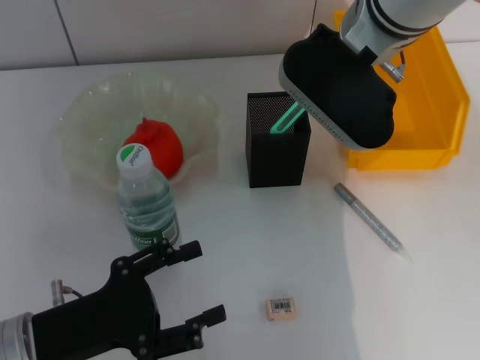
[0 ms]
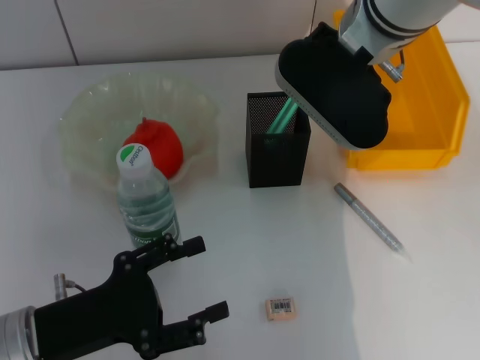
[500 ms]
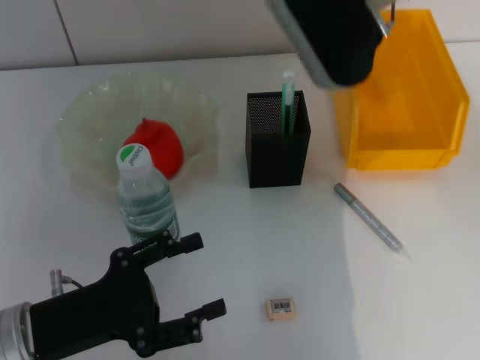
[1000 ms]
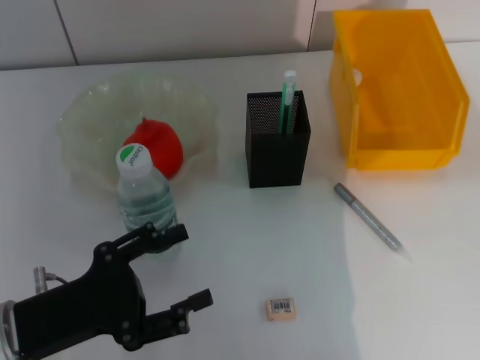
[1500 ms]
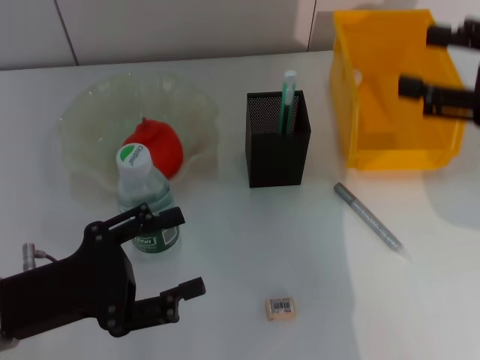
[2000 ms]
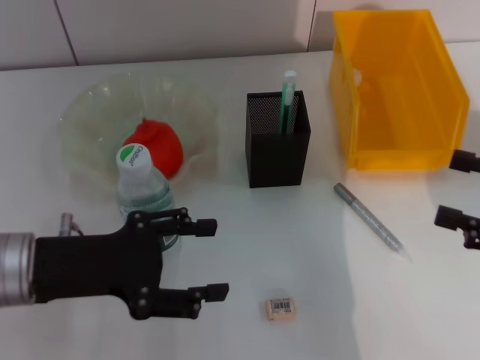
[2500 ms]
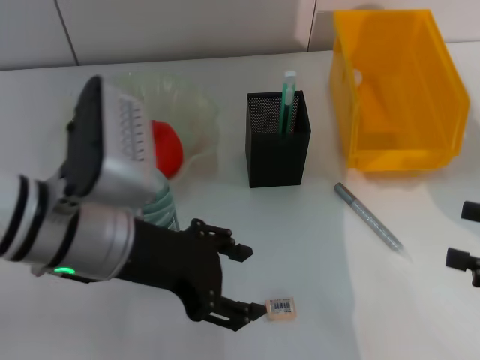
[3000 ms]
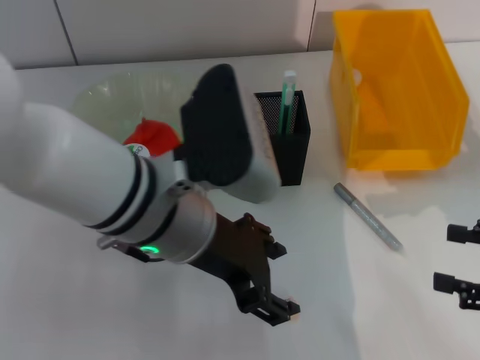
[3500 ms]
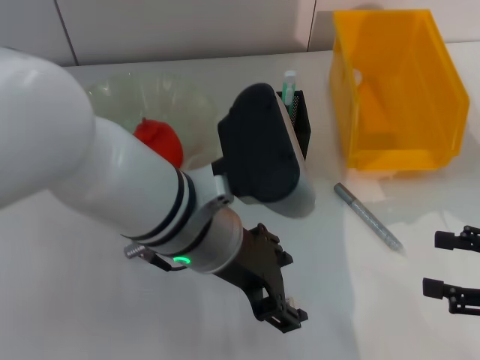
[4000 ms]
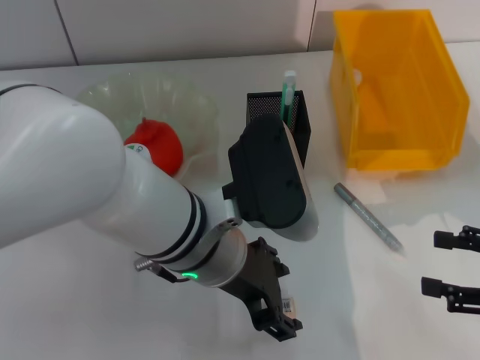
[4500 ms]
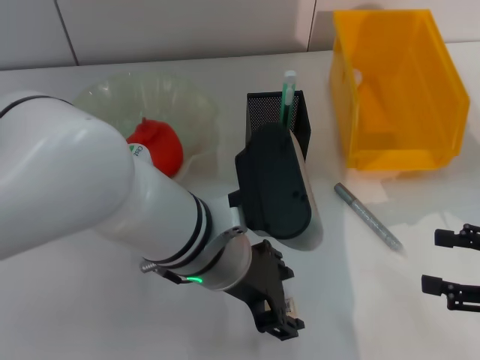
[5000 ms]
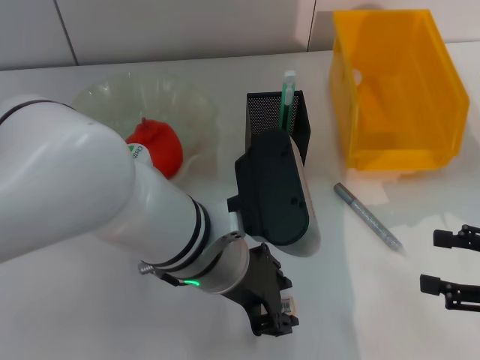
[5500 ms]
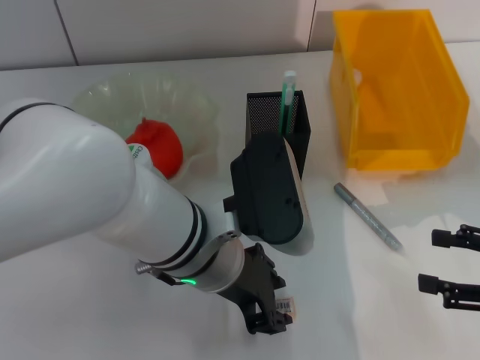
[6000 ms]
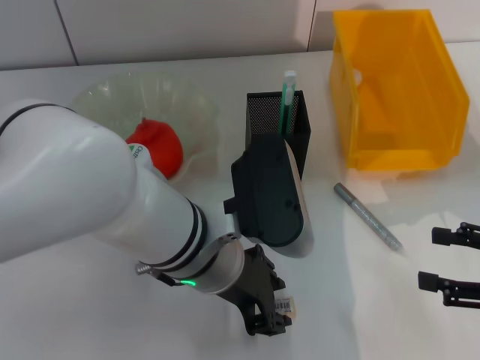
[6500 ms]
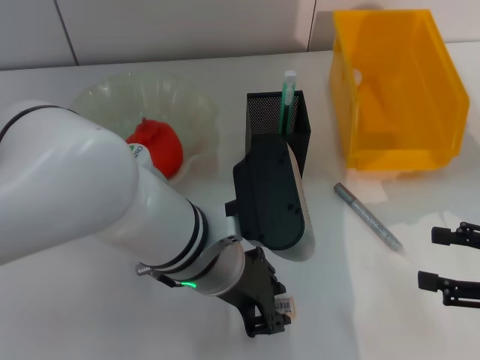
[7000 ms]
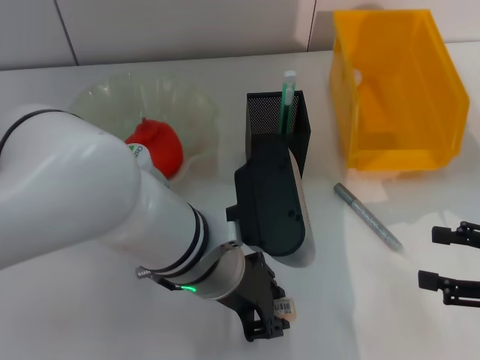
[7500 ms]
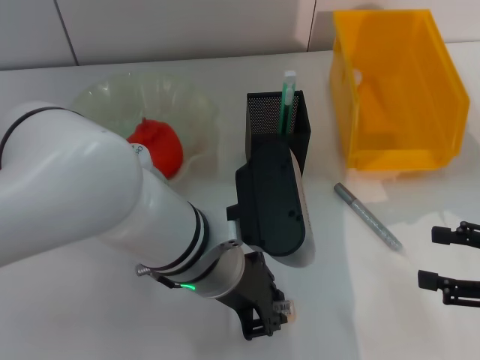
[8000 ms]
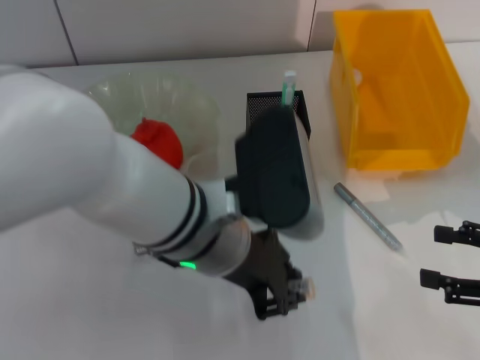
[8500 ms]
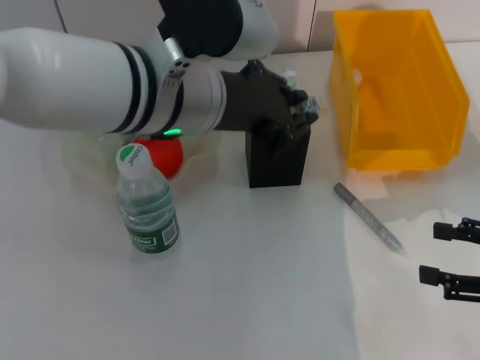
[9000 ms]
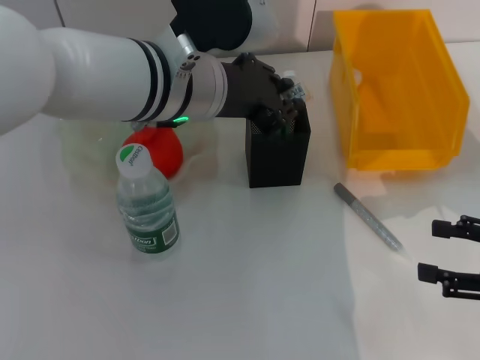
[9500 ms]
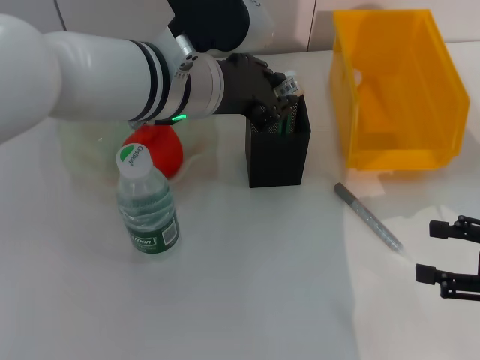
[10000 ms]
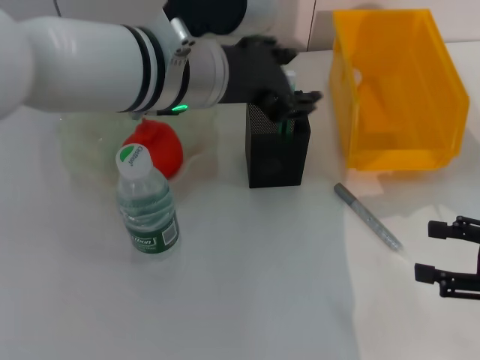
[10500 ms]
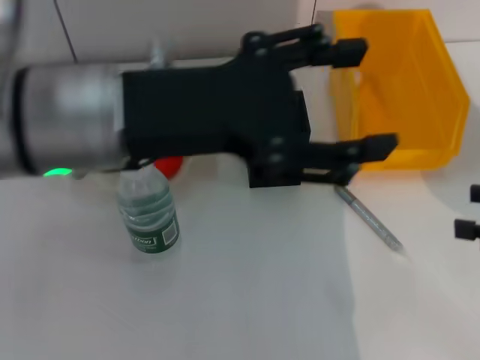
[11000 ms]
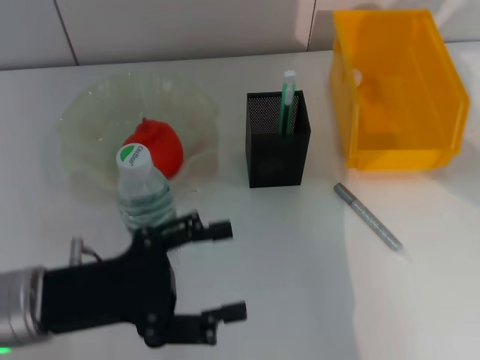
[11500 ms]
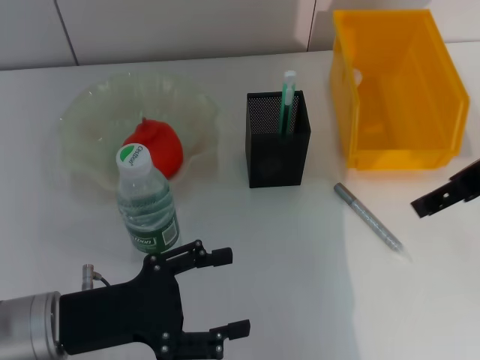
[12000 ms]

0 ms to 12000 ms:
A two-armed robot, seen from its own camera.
Step, 1500 ms to 8000 ms: Grab the eraser with the left hand.
Step, 8500 ms to 10000 ms: Place the eraser into the pen holder with the left hand.
0 ms to 2000 ms: The right gripper is displaced to the right and backward by some 25 cm, and opens its fingers.
2000 ms to 4000 ms: The right gripper goes roughly 15 cm downward and backward. Meanwhile the left gripper travels to the right and upward by some 20 cm.
4000 ms to 6000 ms: The left gripper closes.
6000 ms to 8000 ms: Both grippers stay put.
8000 ms to 10000 ms: The left gripper is displaced forward and upward by some 10 cm.
10000 ms to 12000 ms: The right gripper goes some 20 cm upward, to the left and forward. Meanwhile the left gripper travels to the left, backward and downward by approximately 25 cm, and opens up.

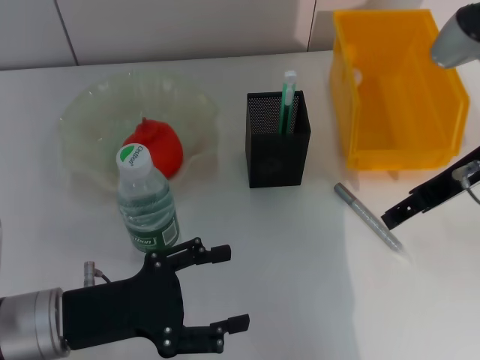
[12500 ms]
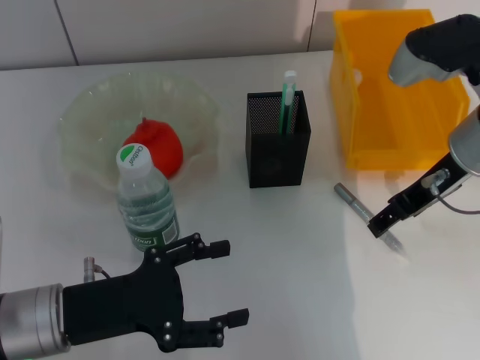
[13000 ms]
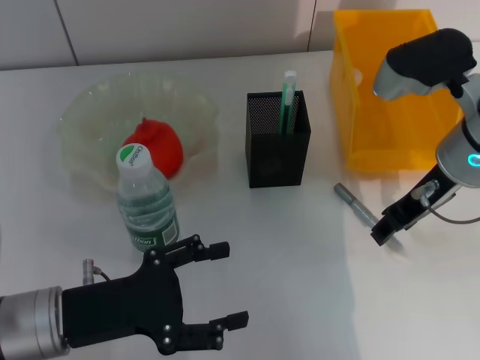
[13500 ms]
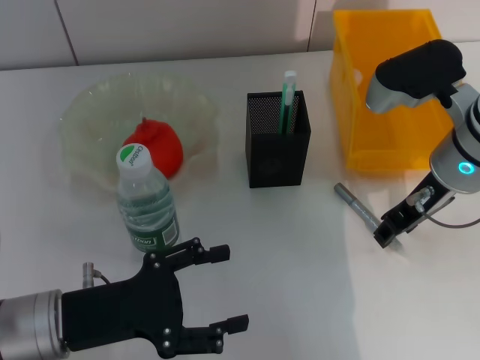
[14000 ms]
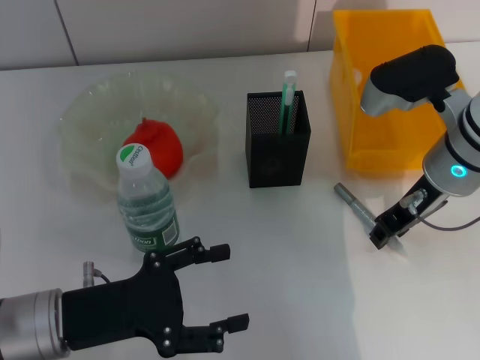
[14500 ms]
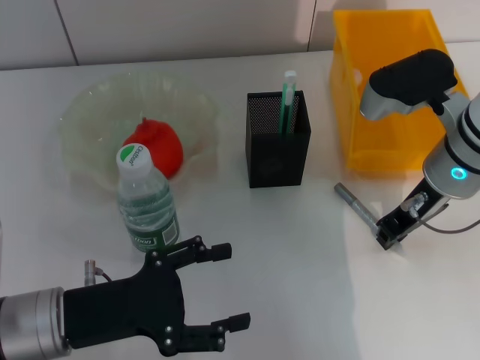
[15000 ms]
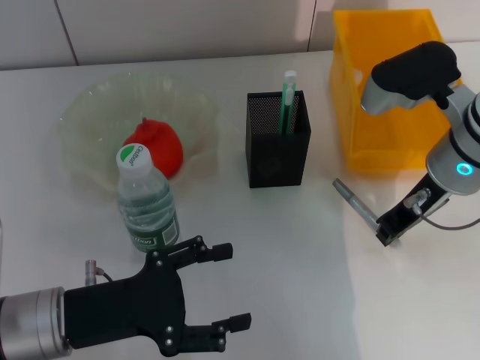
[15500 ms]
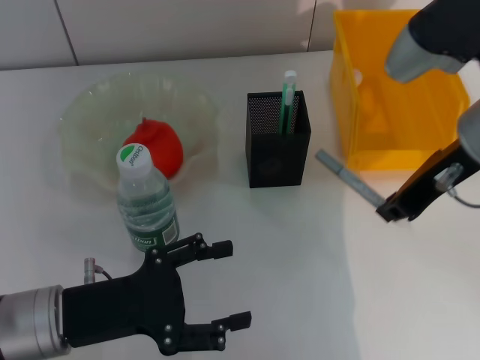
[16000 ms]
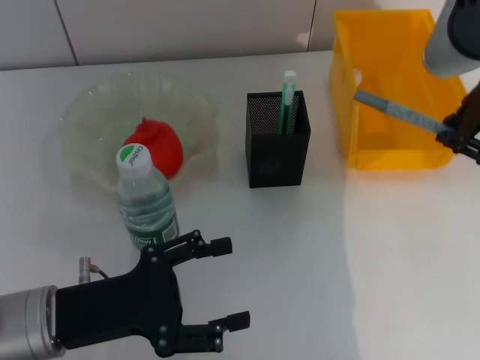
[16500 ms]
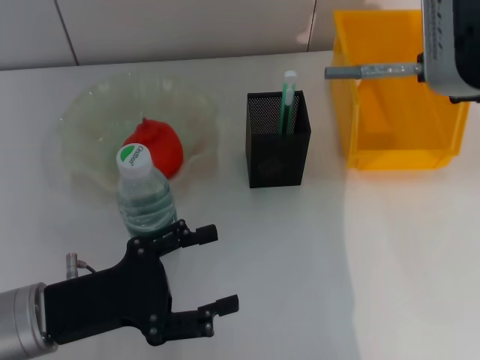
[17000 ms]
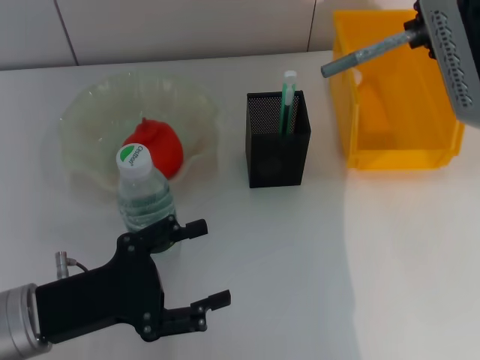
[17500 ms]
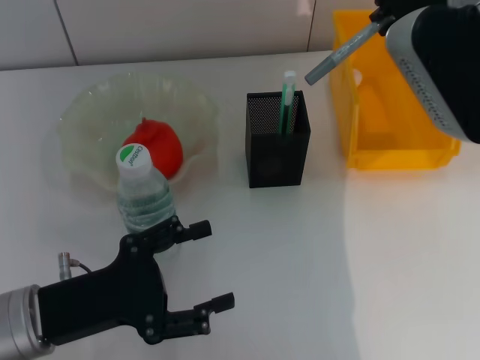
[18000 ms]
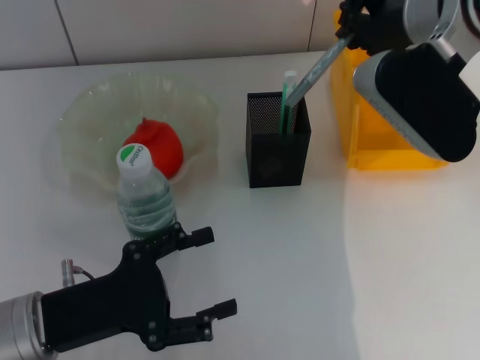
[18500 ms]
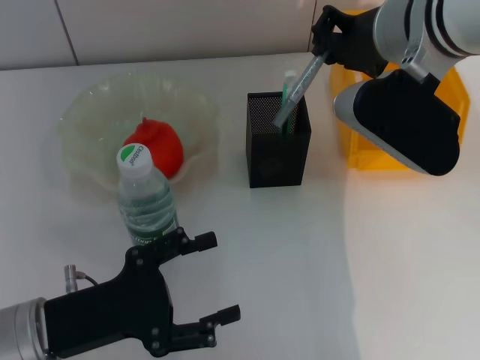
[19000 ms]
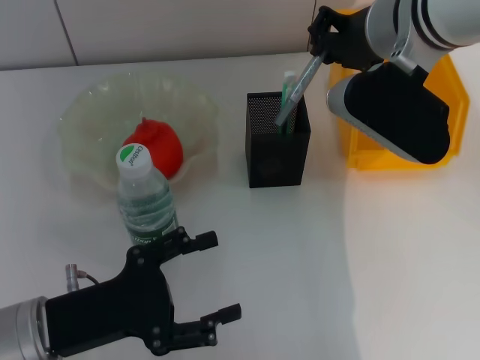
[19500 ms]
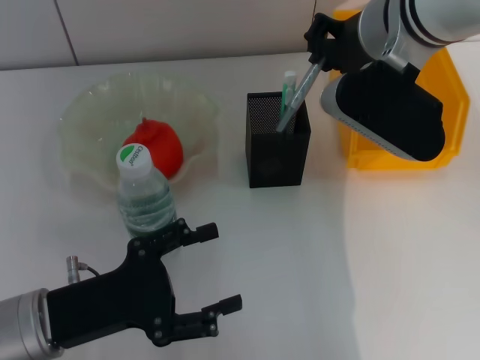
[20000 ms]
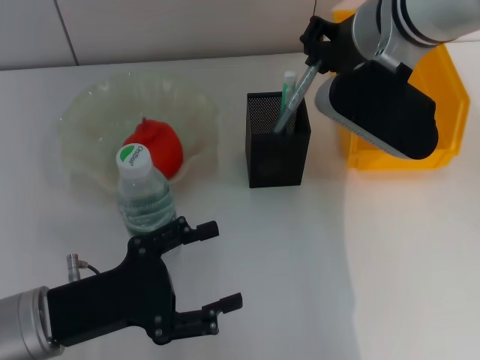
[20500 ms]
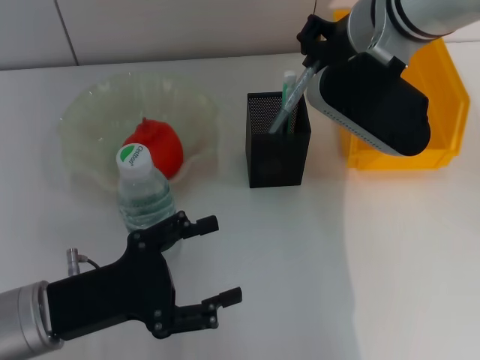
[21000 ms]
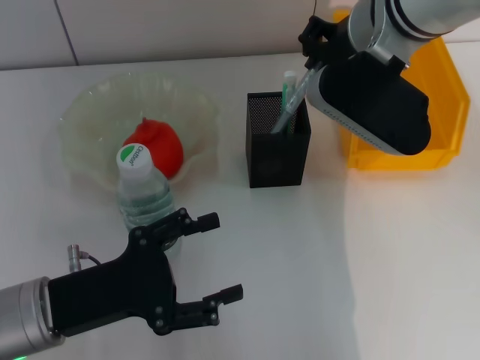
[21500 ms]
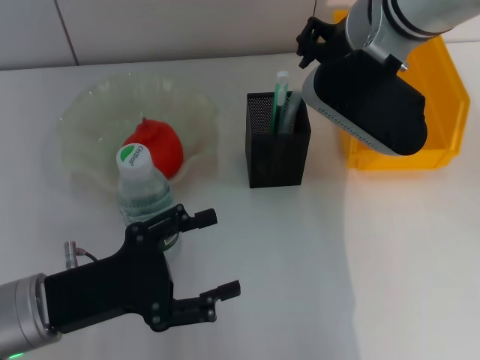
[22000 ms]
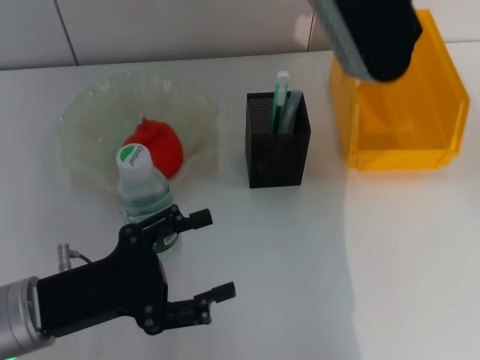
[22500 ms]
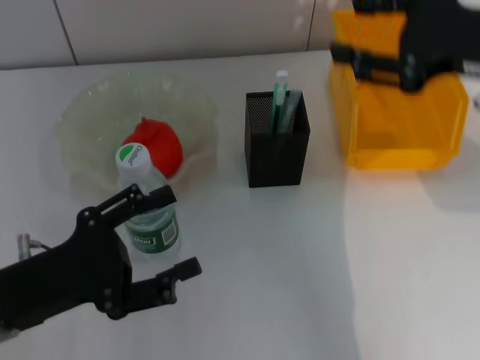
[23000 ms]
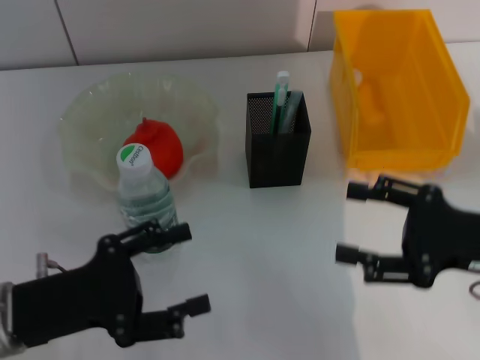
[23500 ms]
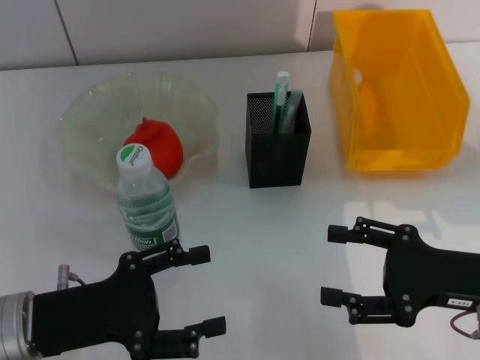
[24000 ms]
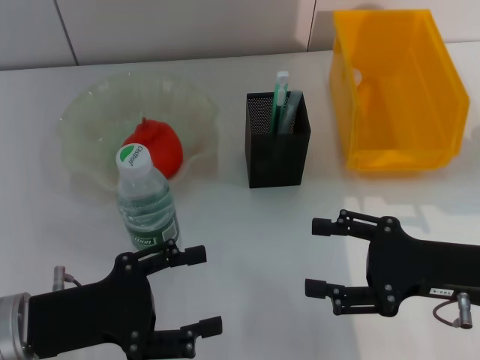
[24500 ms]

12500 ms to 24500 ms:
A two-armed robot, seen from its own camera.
Step, 12500 ms to 15000 ms: Grab the gray glue with the right hand.
Step, 15500 ms to 22000 ms: Place the gray glue into the pen holder with the right hand.
12500 ms to 14500 ms: The right gripper travels downward by some 5 cm, and closes its fingers.
14500 ms to 16500 ms: The right gripper shifts roughly 15 cm upward, and closes up.
16500 ms to 18500 ms: The right gripper travels forward by roughly 5 cm.
18500 ms to 20500 ms: There are only small adjustments of the grippers.
20500 ms to 22500 ms: The right gripper moves upward, some 5 cm.
22500 ms to 24500 ms: The right gripper moves downward, backward and to the right, roughly 30 cm, and opens.

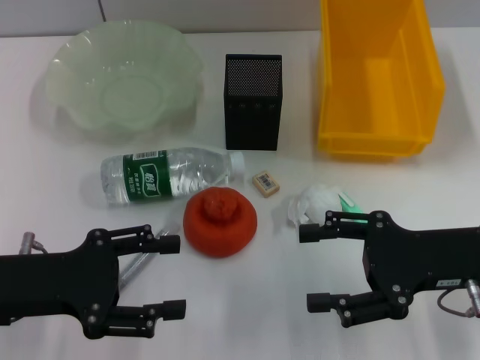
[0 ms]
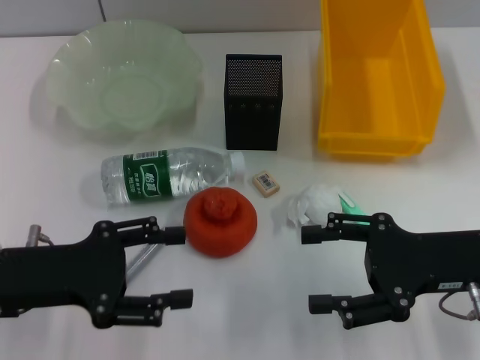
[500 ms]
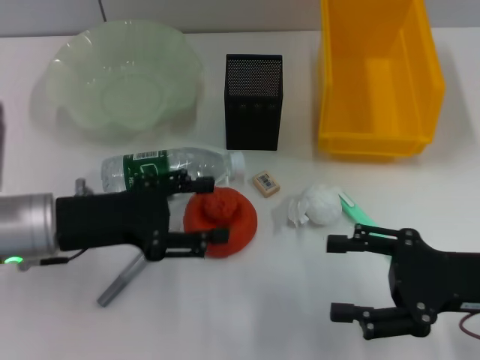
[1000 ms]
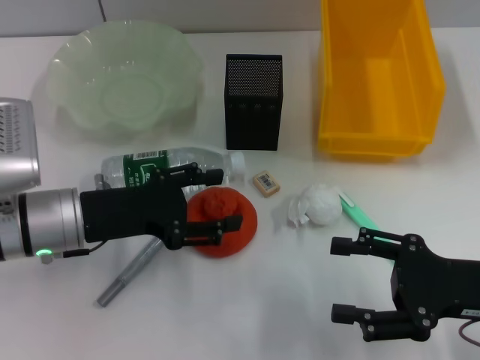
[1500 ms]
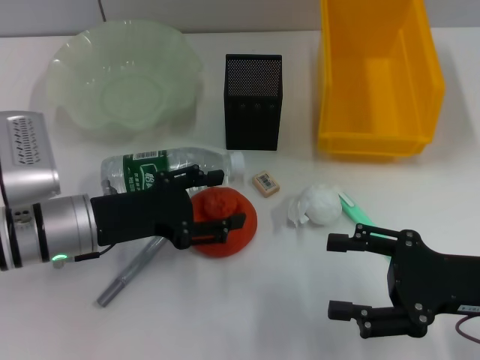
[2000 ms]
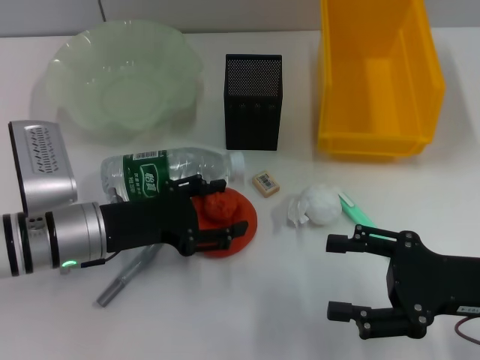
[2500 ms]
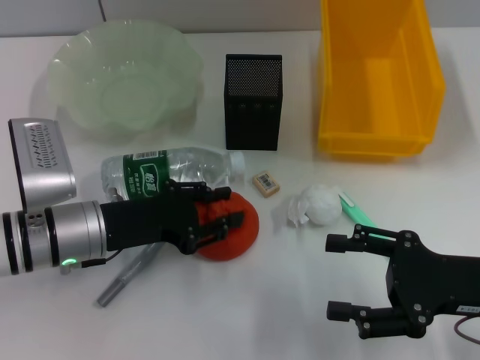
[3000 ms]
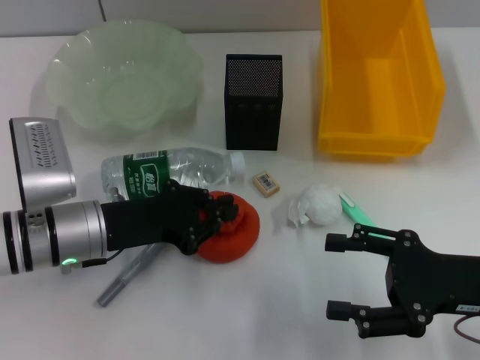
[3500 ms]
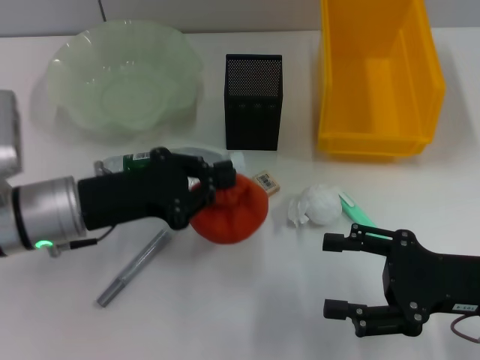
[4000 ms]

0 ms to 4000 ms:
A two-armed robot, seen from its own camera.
Step, 0 ms to 3000 ms: Grab the orange with the left hand.
0 ms to 2000 ms: The left gripper goes about 10 cm forward and to the right.
2000 ms to 4000 ms: The left gripper closes.
